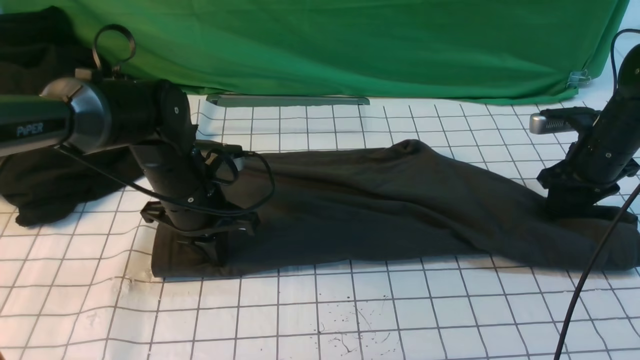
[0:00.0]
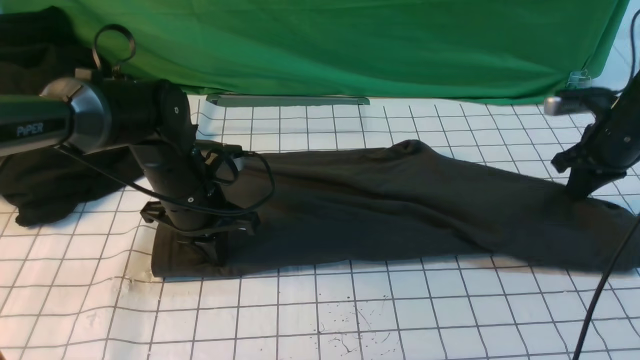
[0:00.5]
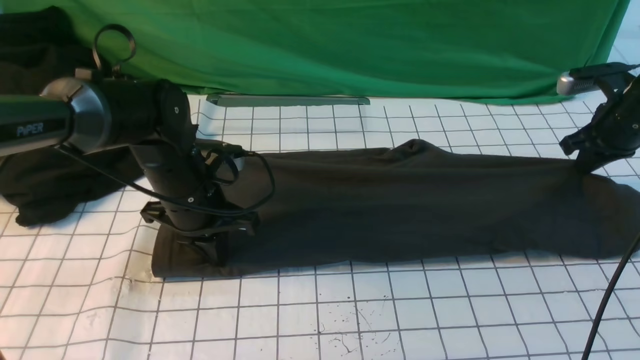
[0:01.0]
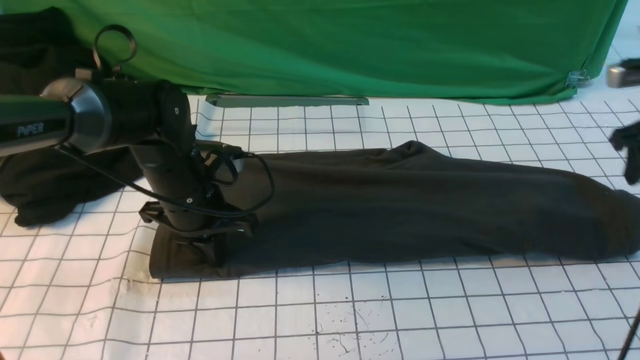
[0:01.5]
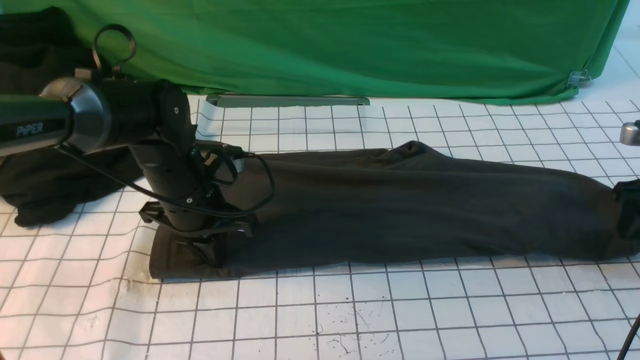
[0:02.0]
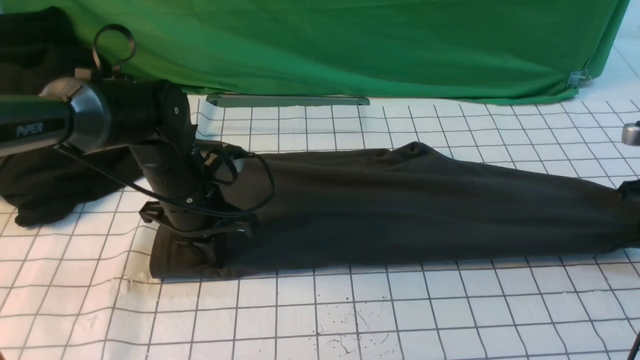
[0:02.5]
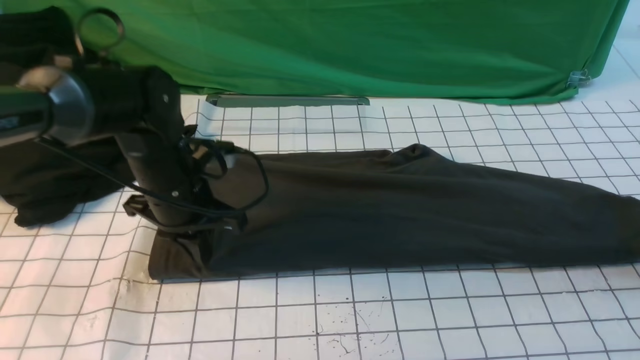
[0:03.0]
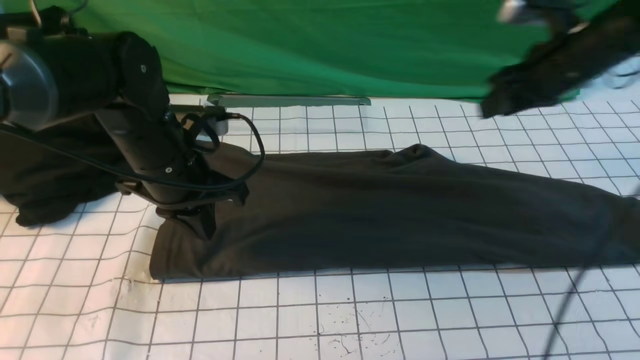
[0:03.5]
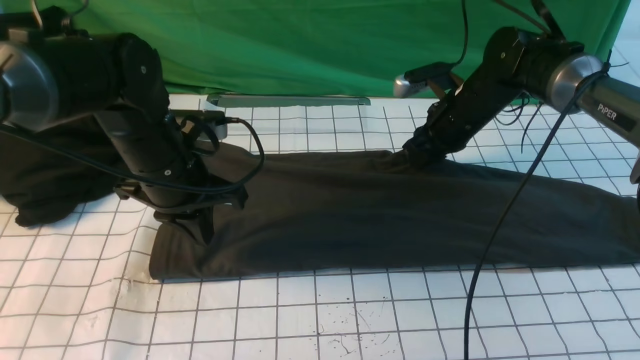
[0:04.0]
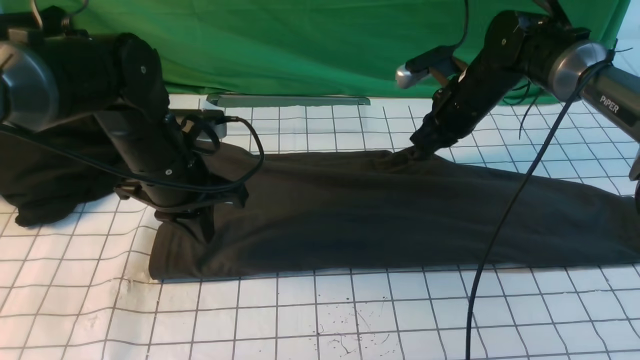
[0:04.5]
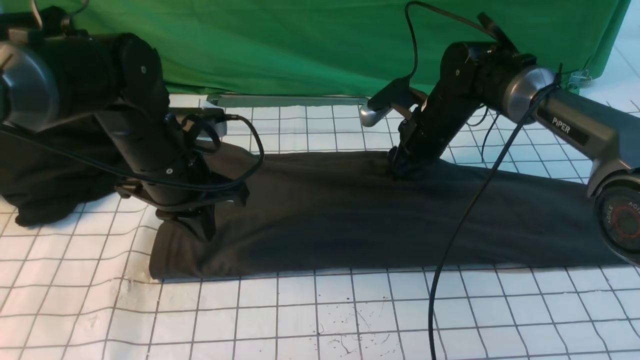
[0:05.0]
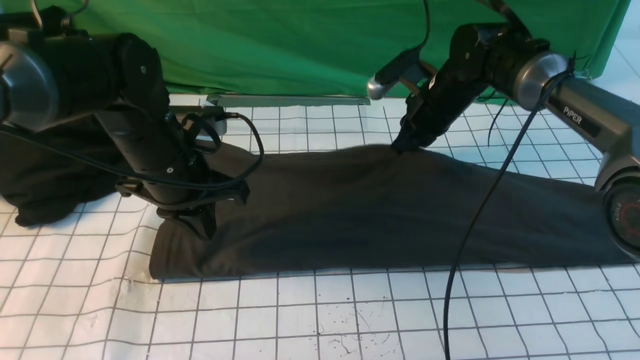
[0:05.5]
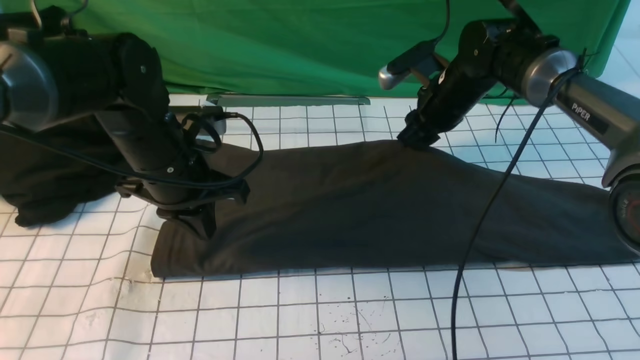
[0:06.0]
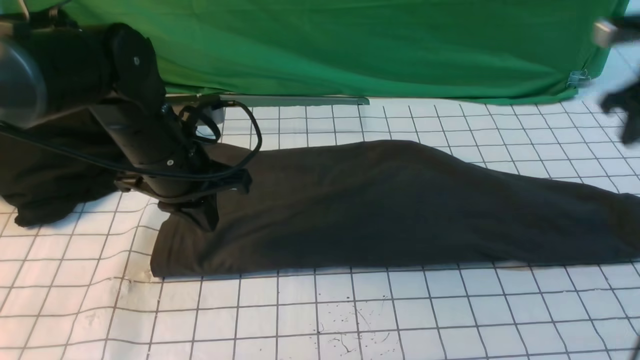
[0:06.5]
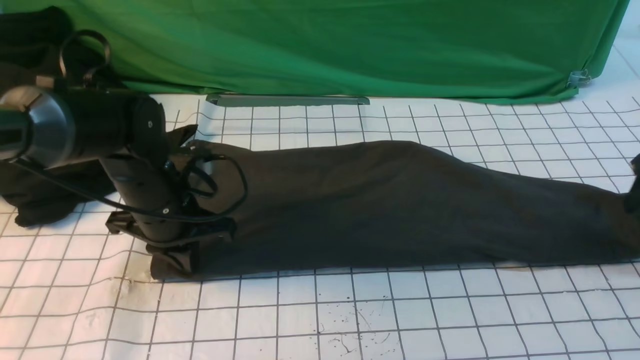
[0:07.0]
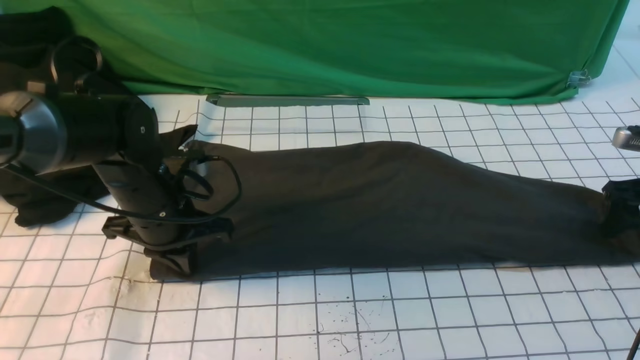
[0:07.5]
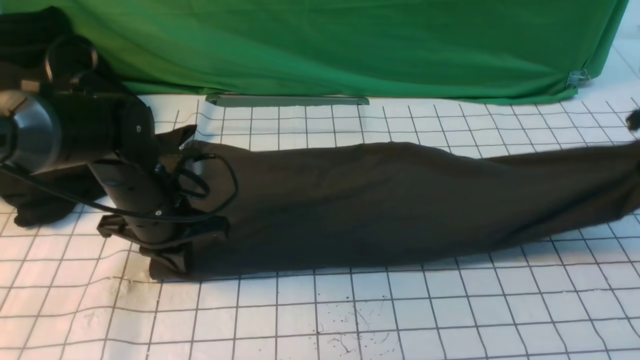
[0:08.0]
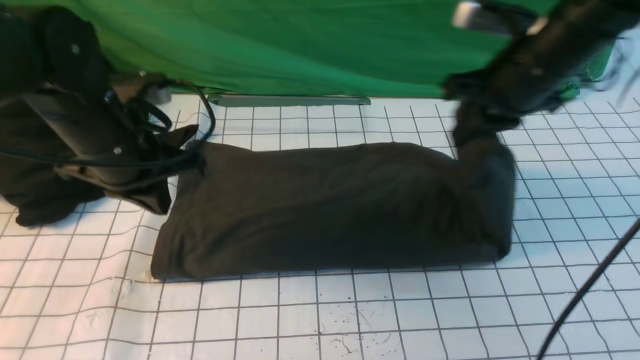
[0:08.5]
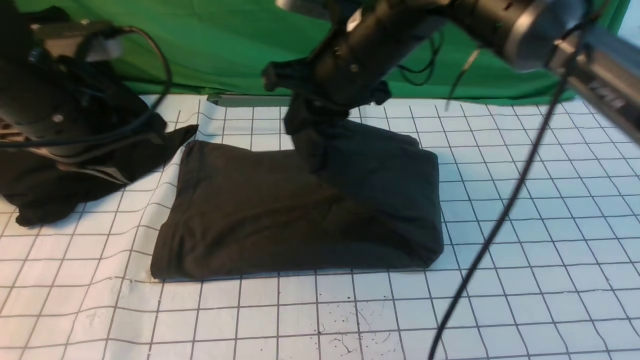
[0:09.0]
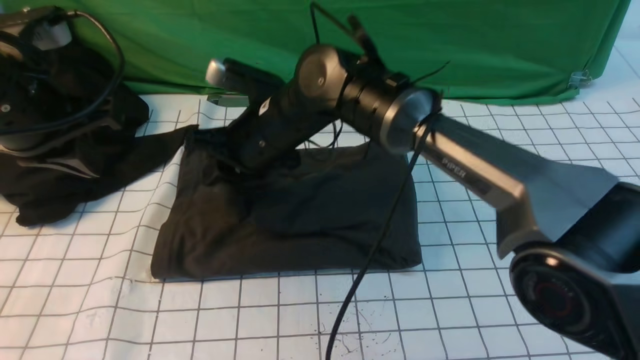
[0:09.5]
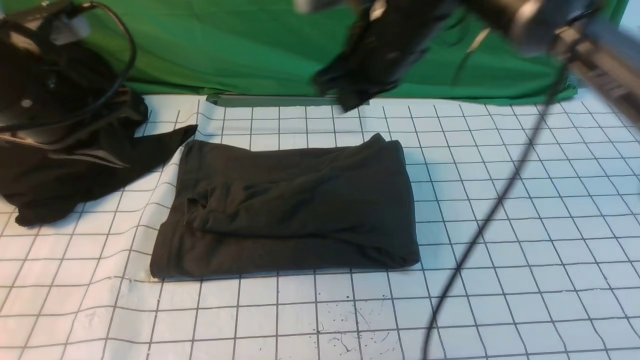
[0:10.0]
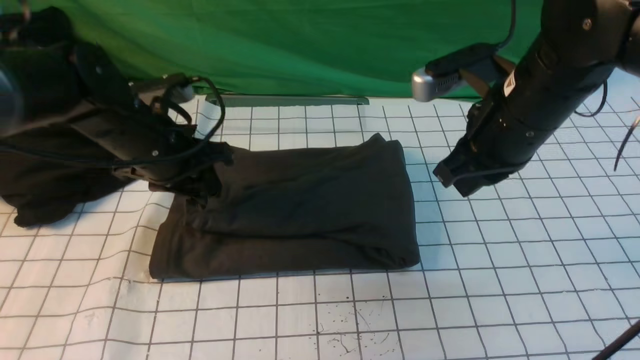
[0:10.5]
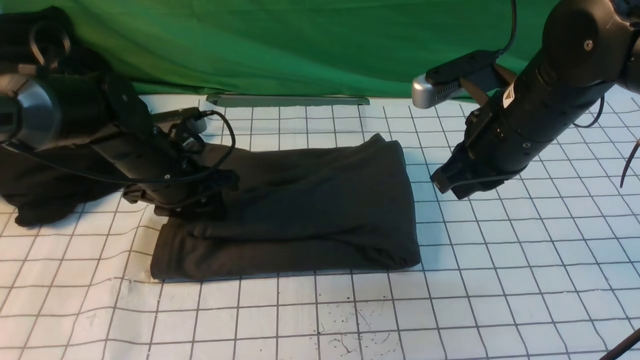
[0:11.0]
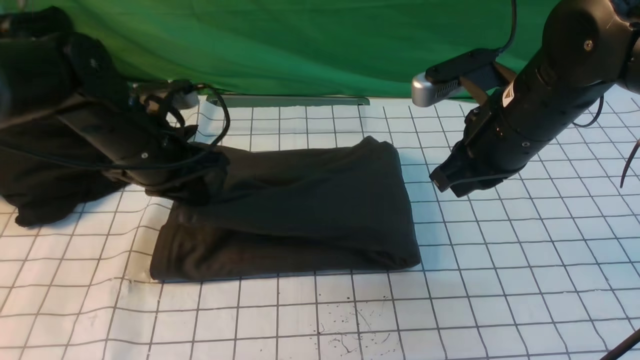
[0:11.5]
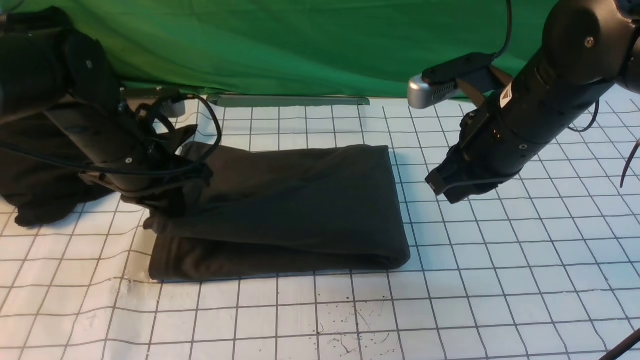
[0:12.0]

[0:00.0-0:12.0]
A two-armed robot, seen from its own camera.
Step, 0:00.0 to 0:07.5: use the right arm to clamp the right edge of the fabric.
Step, 0:08.0 to 0:09.5: use the right arm to drag the right edge of the fabric to the left and folds it over the left edge.
0:00.0 to 0:02.0: The right gripper travels to the right and backward by approximately 10 cm, and opens its fingers.
0:02.0 to 0:04.0: The left gripper heads upward, covering roughly 5 cm; the right gripper moves to the left and forward, roughly 25 cm, and closes.
0:04.0 to 0:06.0: The grippers move only a little.
0:06.0 to 0:08.0: The left gripper moves approximately 5 cm; the right gripper moves to the right, some 20 cm, and closes.
0:08.0 to 0:10.0: The left gripper shifts some 15 cm upward and to the left, while the right gripper heads to the left, covering roughly 30 cm.
0:10.0 to 0:12.0: The right gripper shifts about 10 cm to the right and backward, and closes. The left gripper goes approximately 10 cm downward, and opens and closes again.

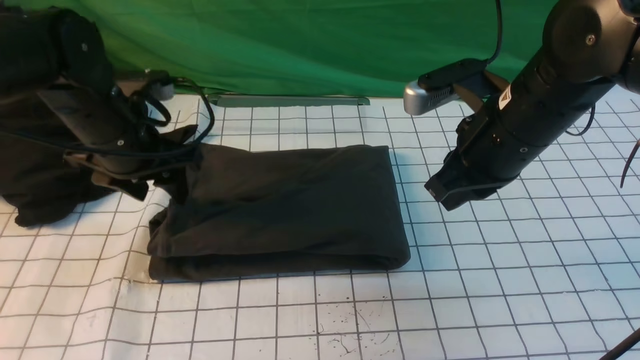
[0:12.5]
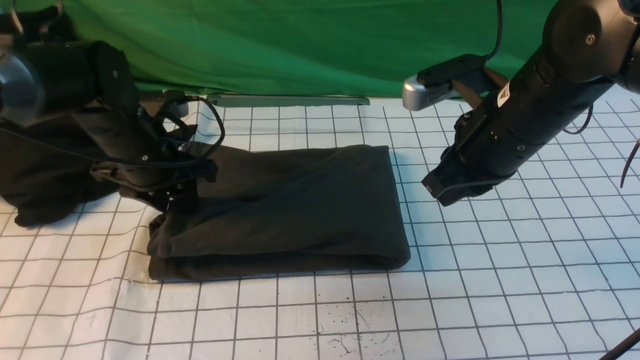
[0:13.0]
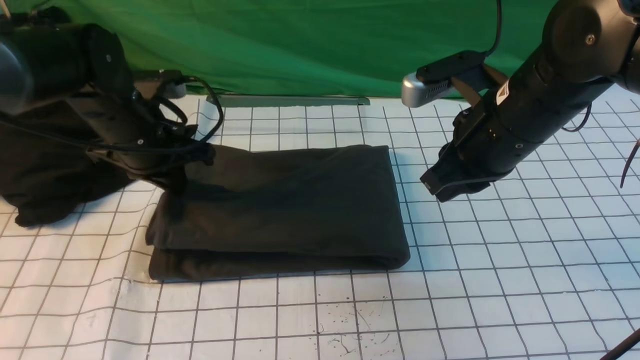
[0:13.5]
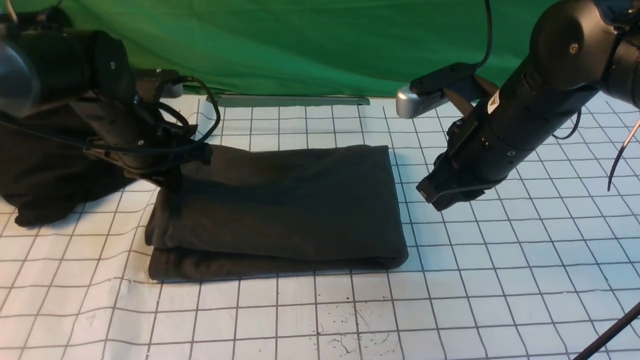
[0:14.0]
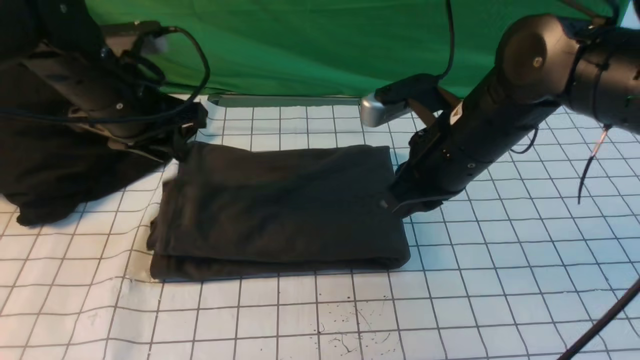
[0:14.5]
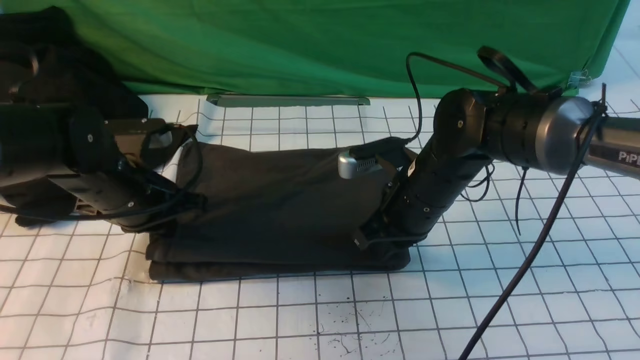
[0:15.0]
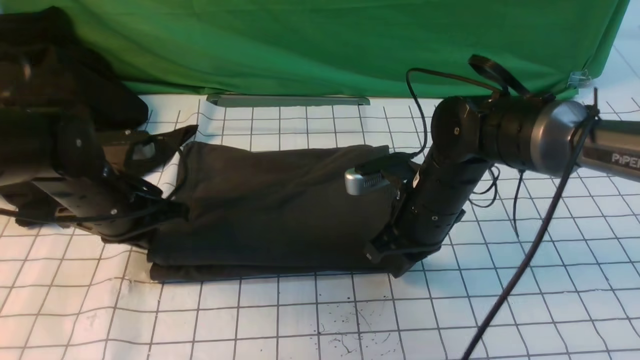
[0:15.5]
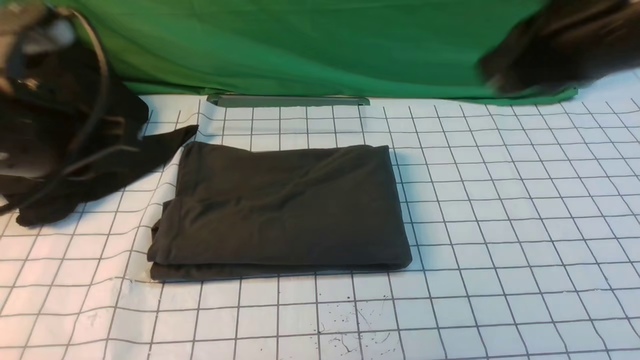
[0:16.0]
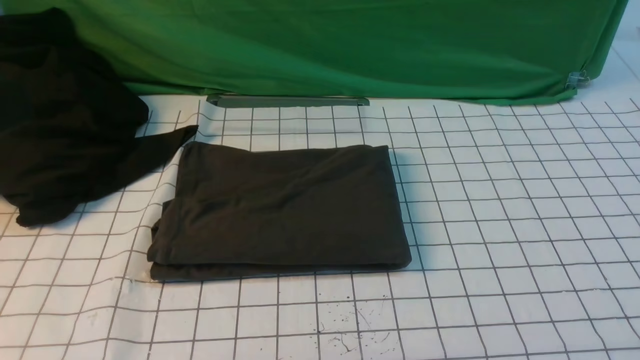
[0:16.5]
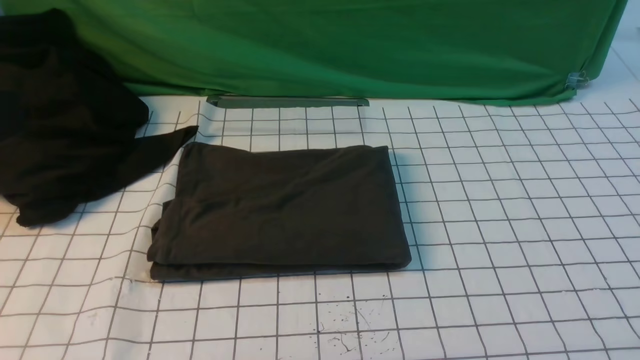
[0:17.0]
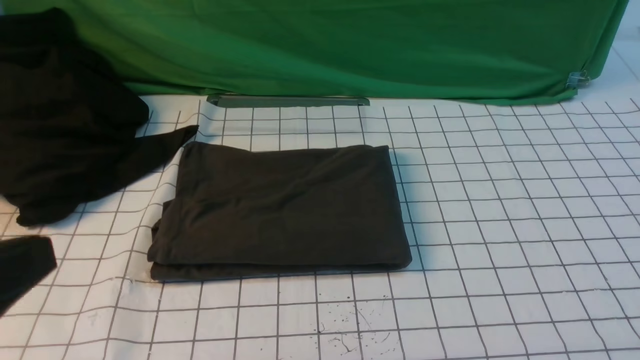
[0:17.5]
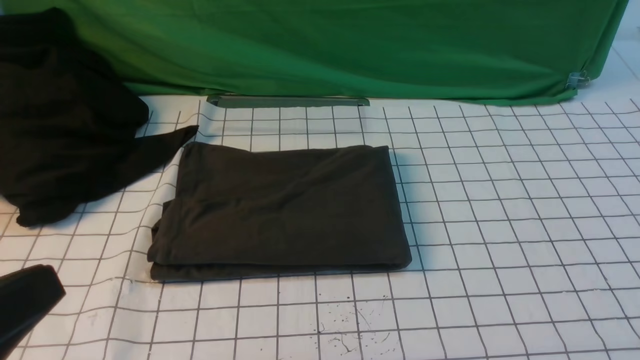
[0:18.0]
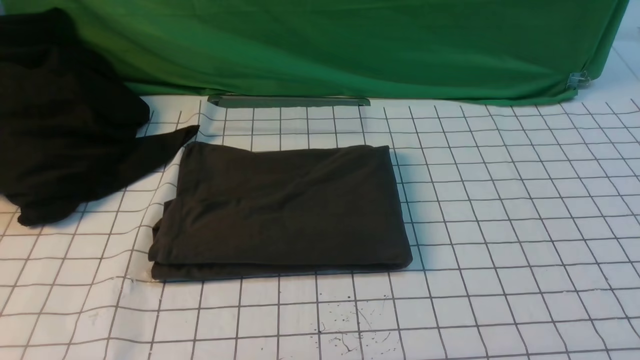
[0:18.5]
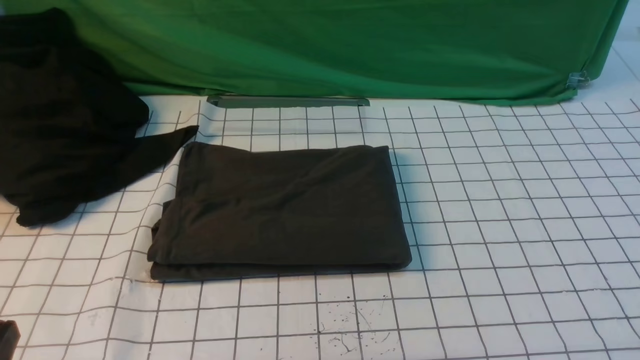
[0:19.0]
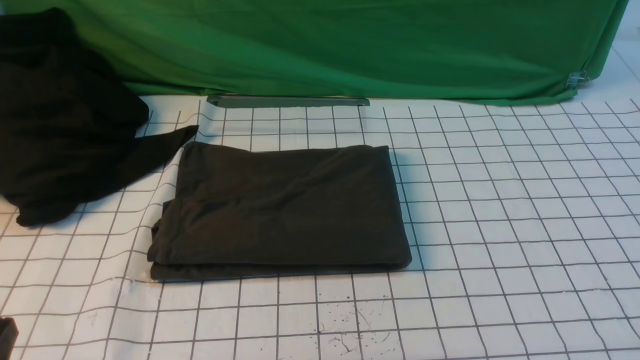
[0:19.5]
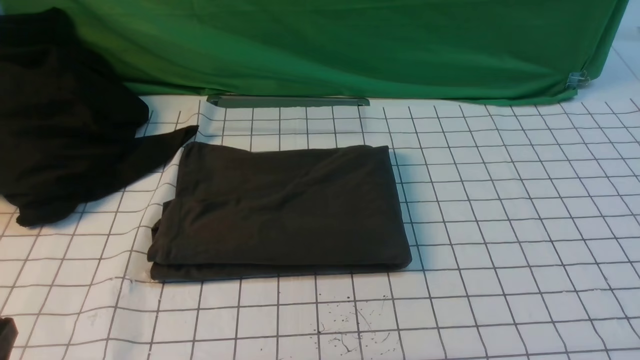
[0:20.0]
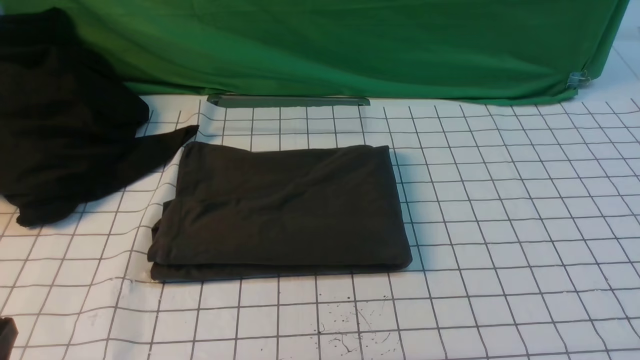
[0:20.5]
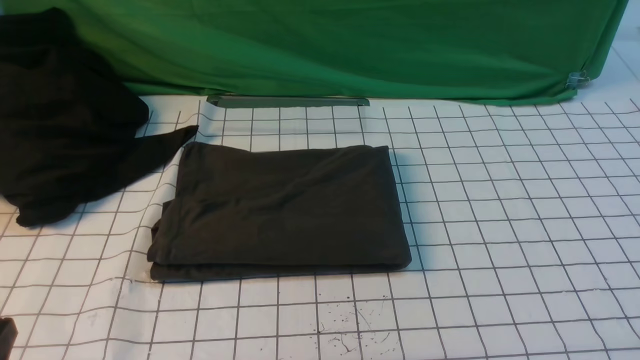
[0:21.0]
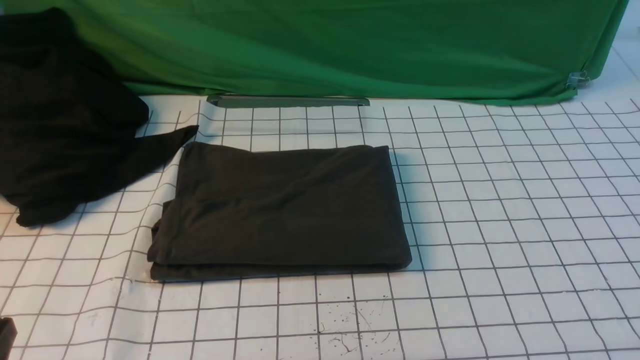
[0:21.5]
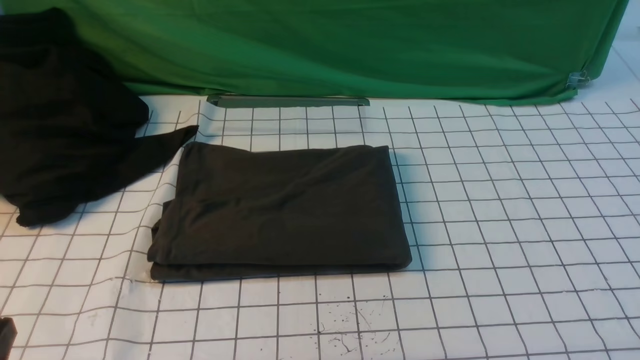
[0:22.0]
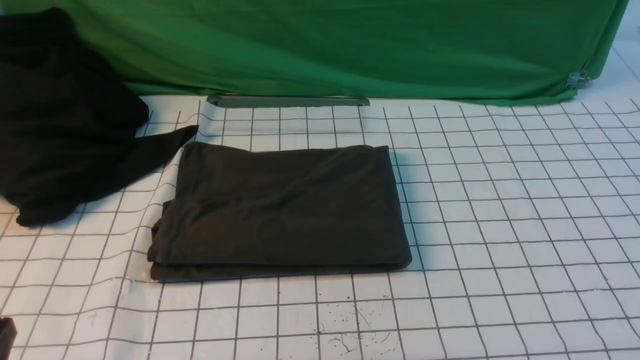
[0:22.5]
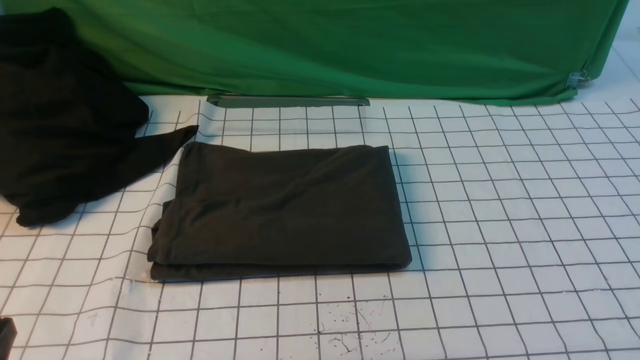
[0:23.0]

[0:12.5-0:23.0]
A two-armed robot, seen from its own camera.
0:12.5 to 0:14.5: The left gripper closes its fingers; the right gripper changes place by roughly 5 cm.
0:14.5 to 0:16.5: The left gripper is displaced backward and upward by some 30 cm, and closes, while the right gripper goes some 40 cm backward, upward and to the right.
